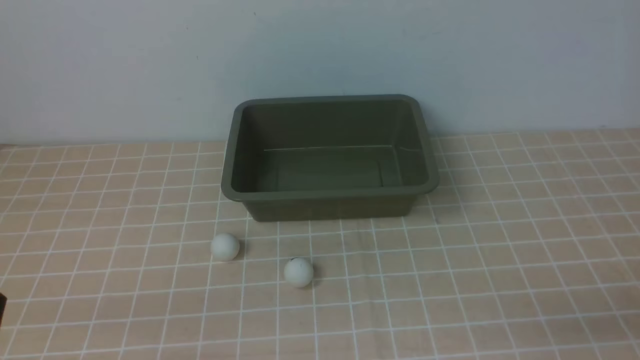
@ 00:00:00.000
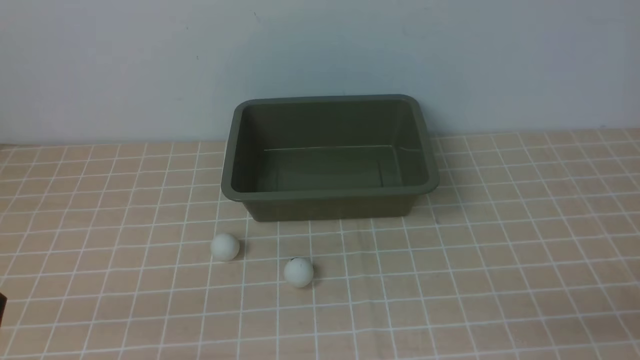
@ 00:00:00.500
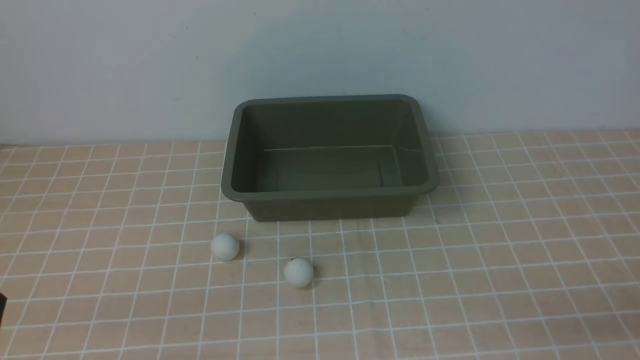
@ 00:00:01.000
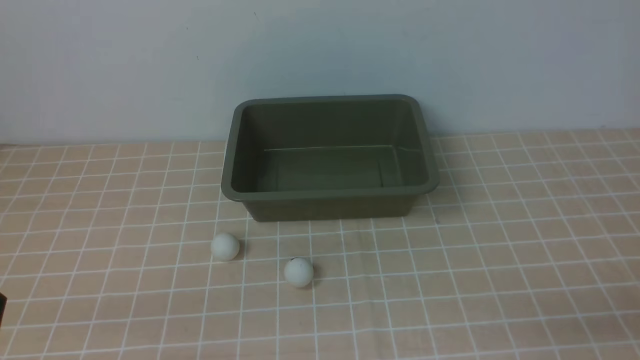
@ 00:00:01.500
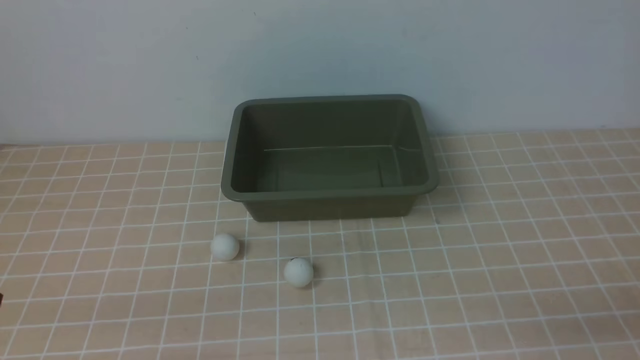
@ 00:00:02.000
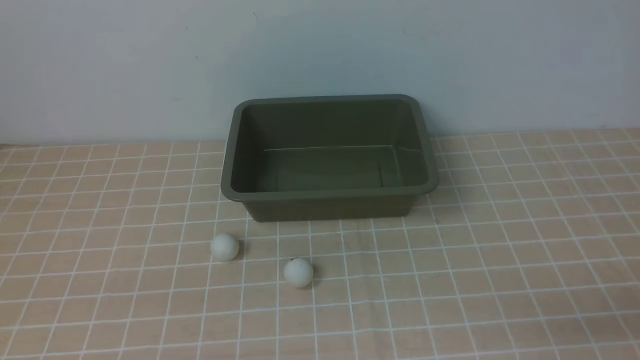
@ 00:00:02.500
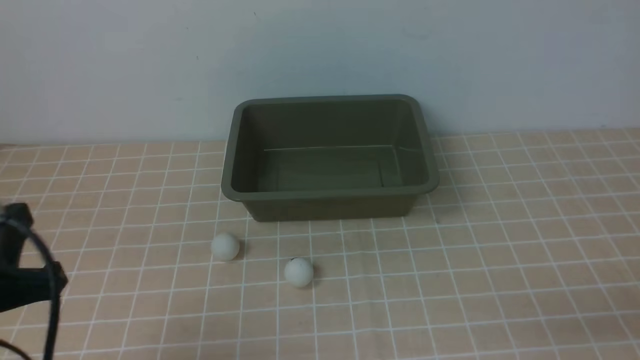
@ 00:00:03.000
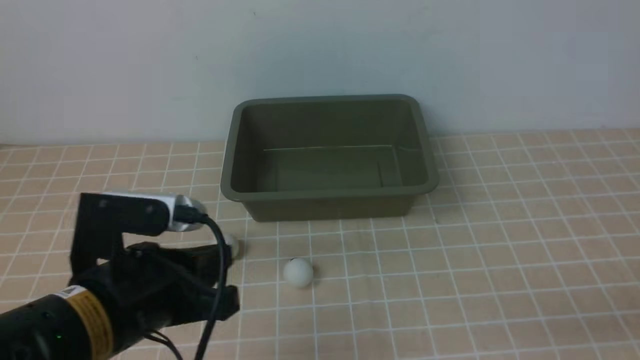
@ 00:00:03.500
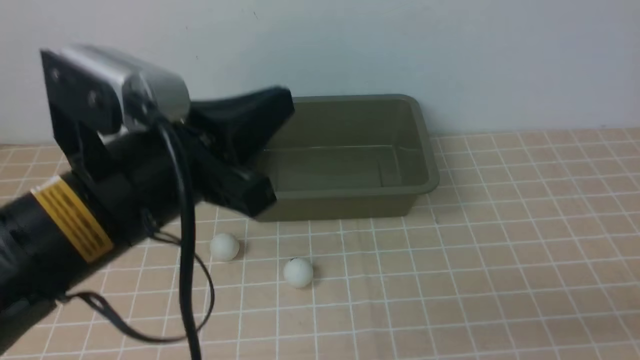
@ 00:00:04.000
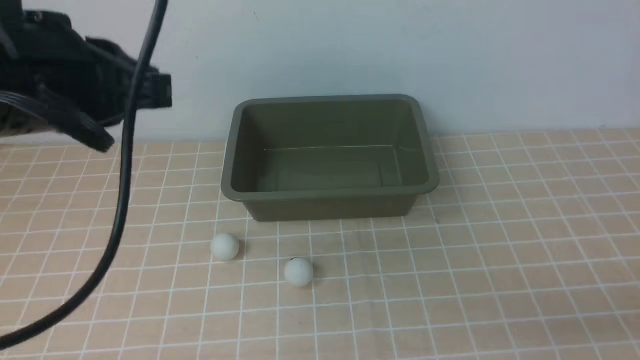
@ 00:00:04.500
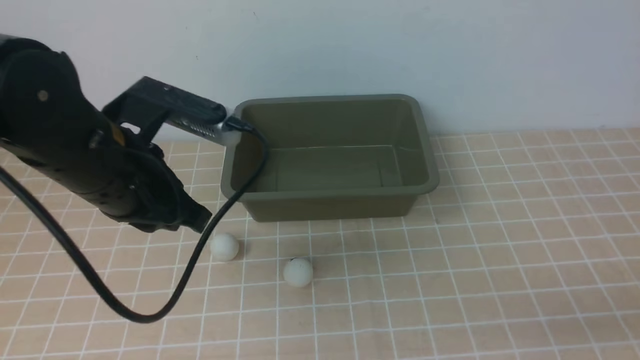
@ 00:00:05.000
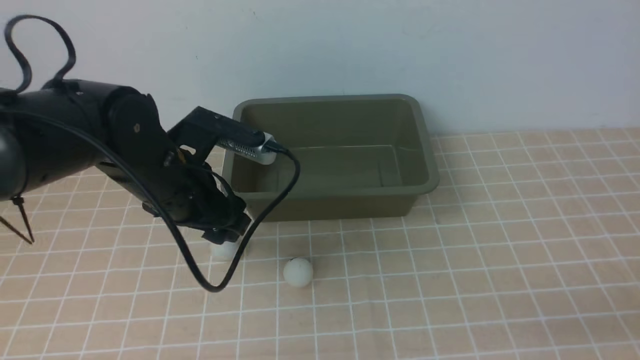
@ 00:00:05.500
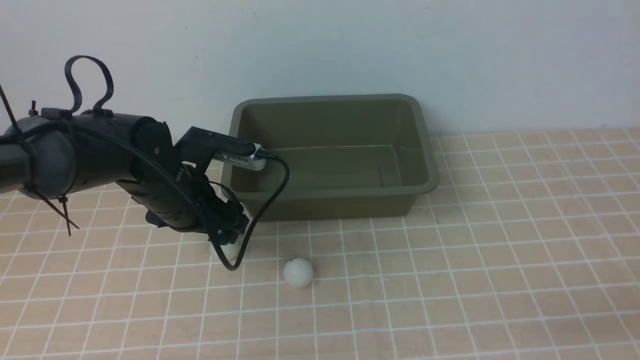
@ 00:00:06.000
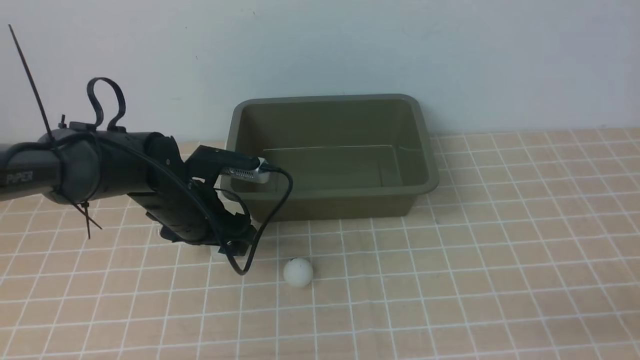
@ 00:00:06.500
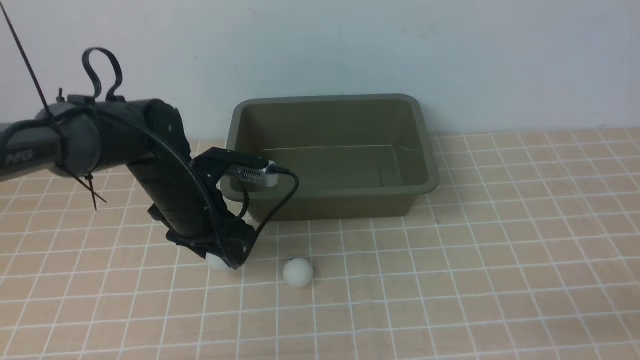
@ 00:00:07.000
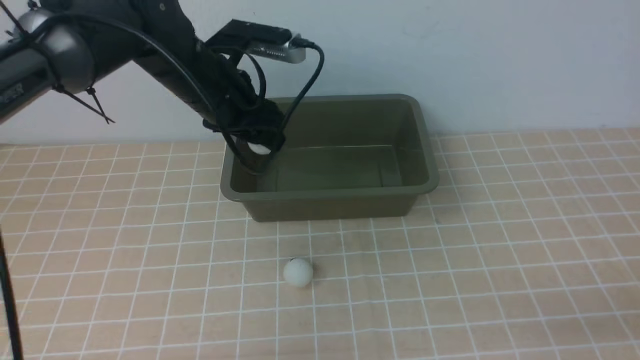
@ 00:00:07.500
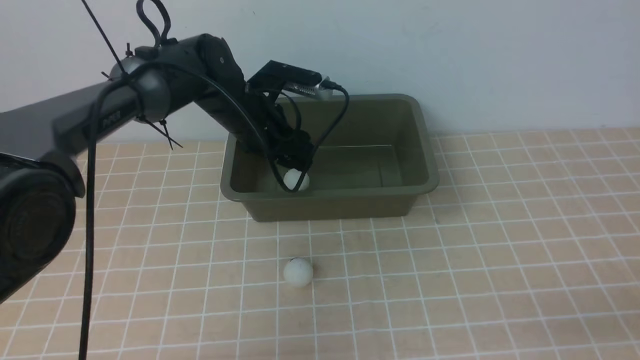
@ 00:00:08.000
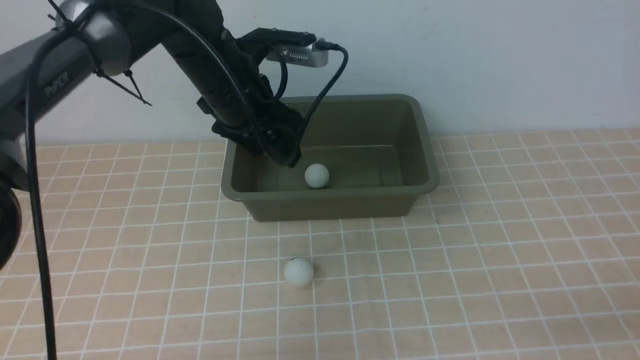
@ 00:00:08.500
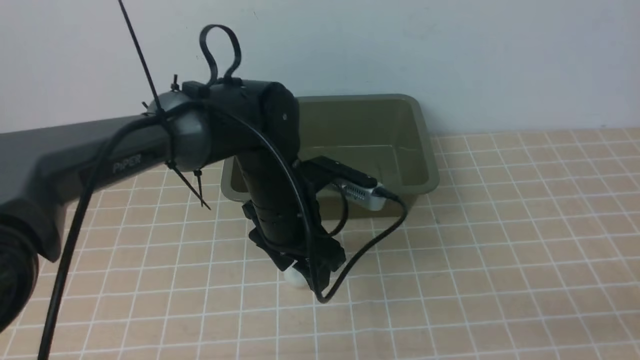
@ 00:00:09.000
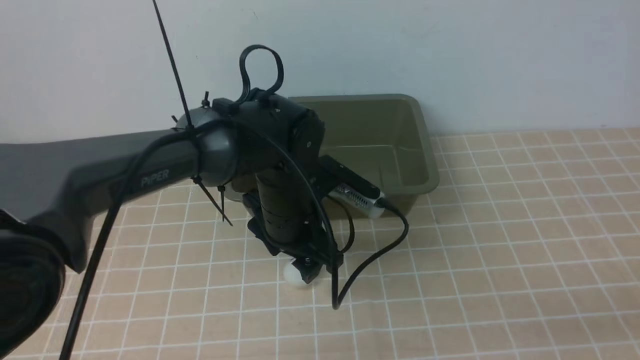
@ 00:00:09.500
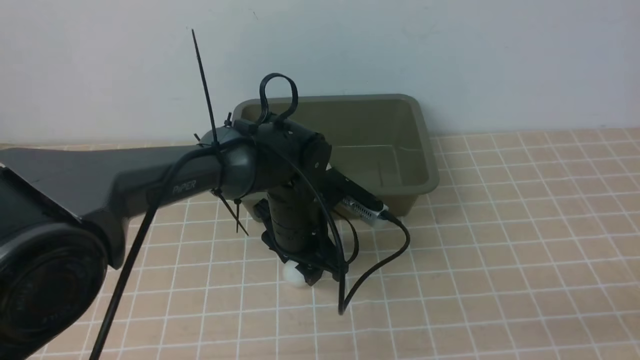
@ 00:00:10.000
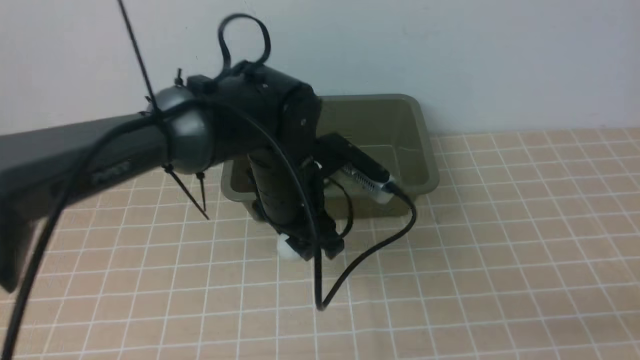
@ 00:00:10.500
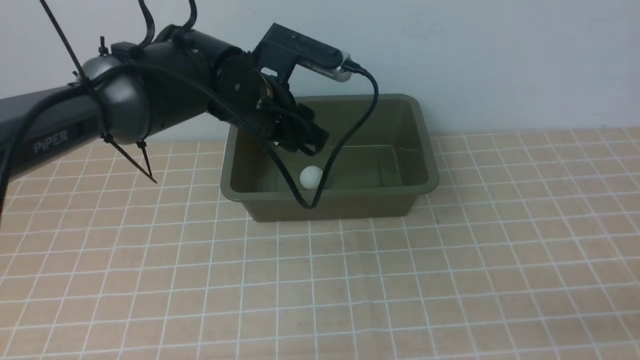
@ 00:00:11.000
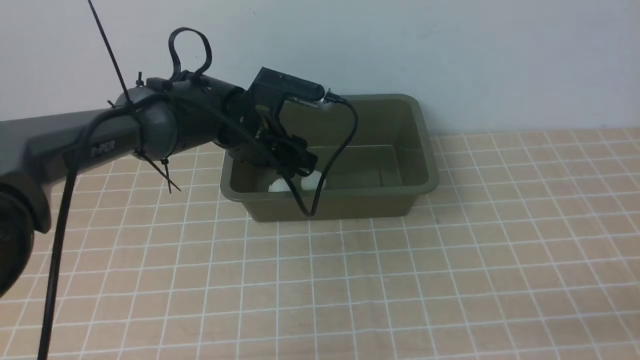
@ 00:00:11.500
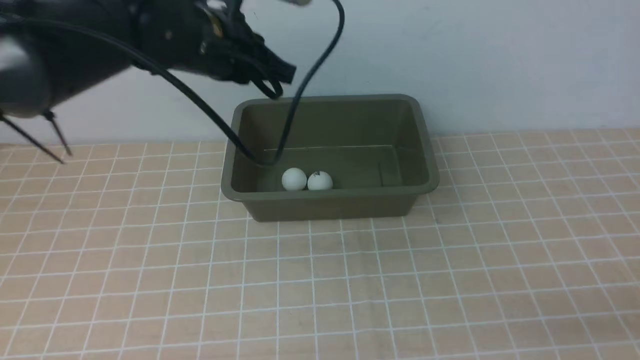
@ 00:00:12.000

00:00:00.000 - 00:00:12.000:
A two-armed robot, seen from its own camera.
Step, 00:00:00.000 - 00:00:07.000: use the left arm to clamp the table tennis ball closest to it.
Step, 00:00:07.500 - 00:00:08.000: use the left arm to put the table tennis ball into the box.
Step, 00:00:08.500 - 00:00:10.000: use the left arm to clamp the table tennis ball closest to it.
Step, 00:00:10.500 - 00:00:11.500: use the left arm to put the table tennis ball into the box.
00:00:02.000 - 00:00:04.000: The left gripper moves to the right, forward and upward, approximately 20 cm.
00:00:04.000 - 00:00:06.000: The left gripper shifts about 20 cm forward and downward, and opens up.
00:00:06.000 - 00:00:08.000: The left gripper shifts about 10 cm forward and to the right.
00:00:08.000 - 00:00:10.000: The left gripper heads backward, to the right and downward, covering approximately 15 cm.
00:00:10.000 - 00:00:12.000: The left gripper swings up and down, about 15 cm each way, with 2 reversals, and closes.

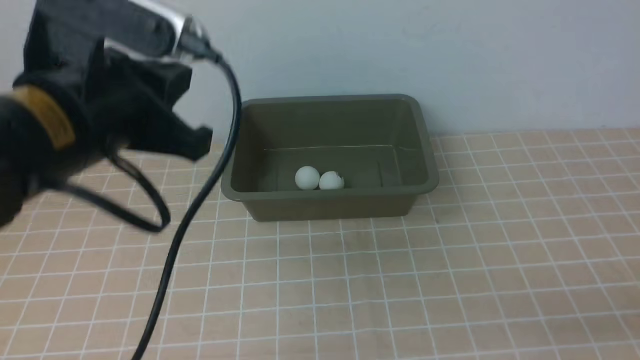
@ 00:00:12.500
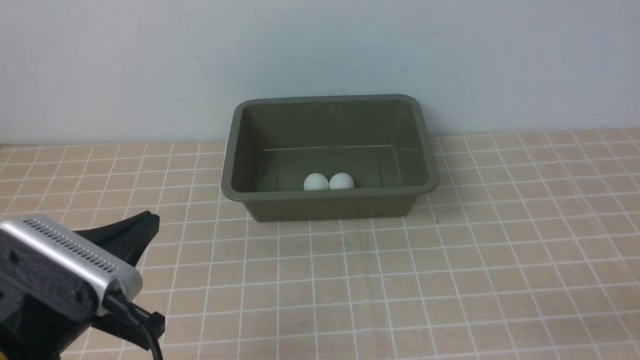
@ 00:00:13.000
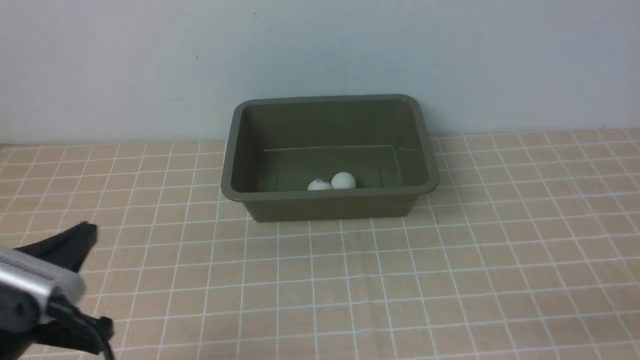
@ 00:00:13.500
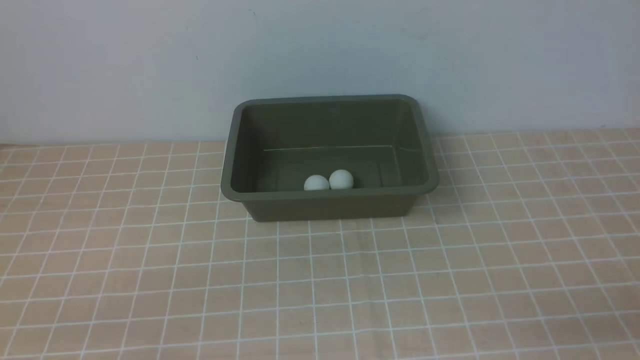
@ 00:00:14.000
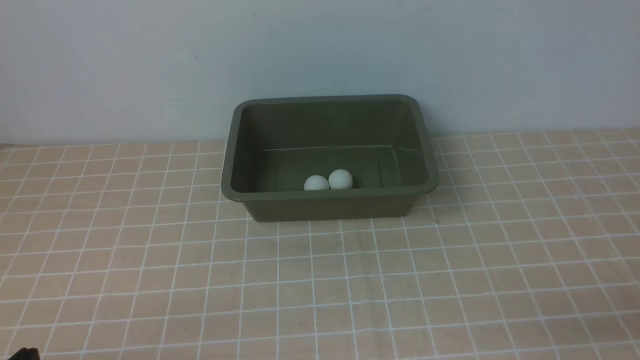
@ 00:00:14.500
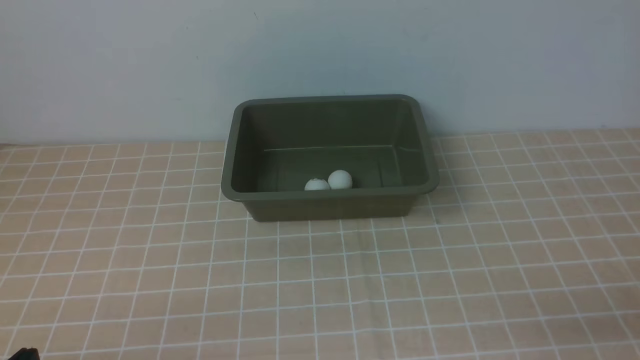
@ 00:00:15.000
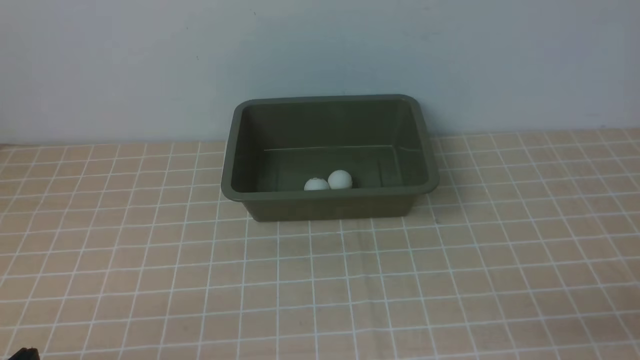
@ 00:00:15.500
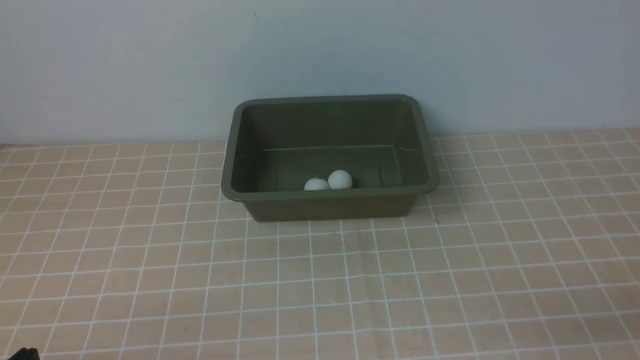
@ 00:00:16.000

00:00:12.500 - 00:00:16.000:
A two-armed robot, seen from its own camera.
00:00:12.500 - 00:00:14.500: The left gripper moves backward, downward and to the left, roughly 30 cm.
00:00:14.500 - 00:00:16.000: The two grippers keep their place.

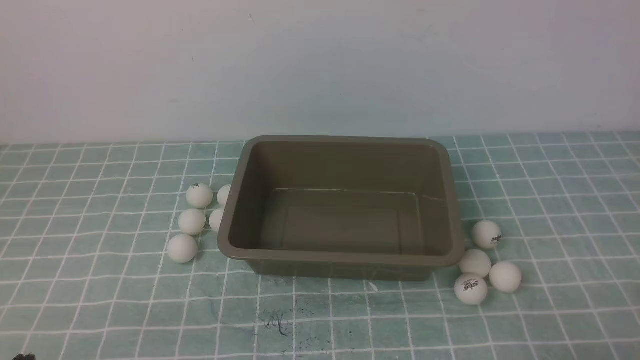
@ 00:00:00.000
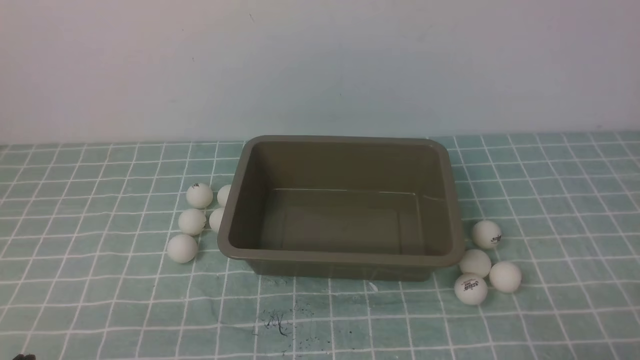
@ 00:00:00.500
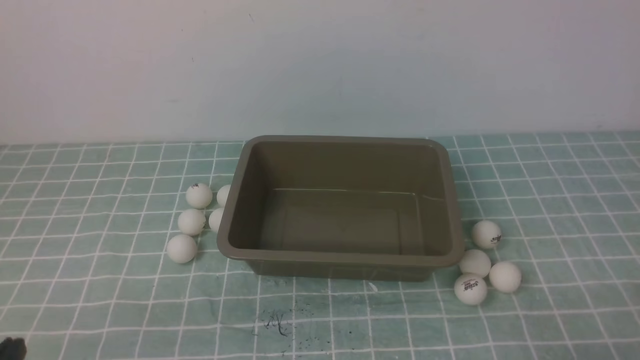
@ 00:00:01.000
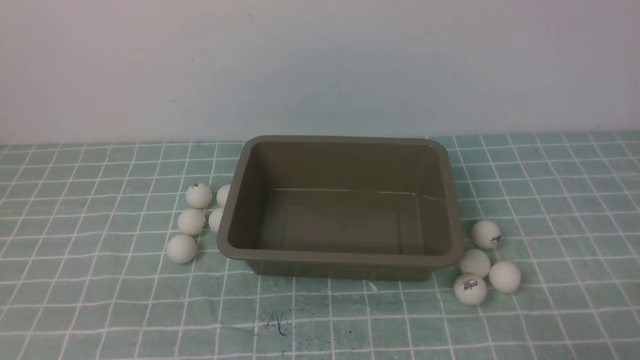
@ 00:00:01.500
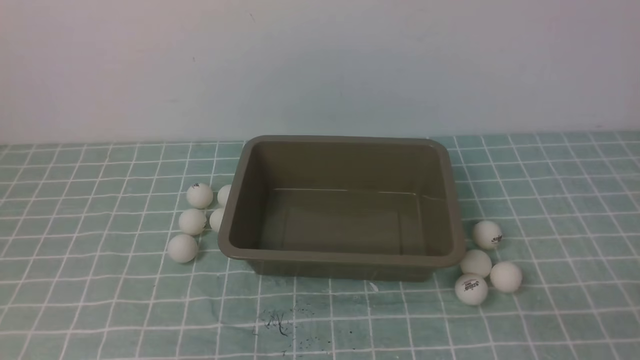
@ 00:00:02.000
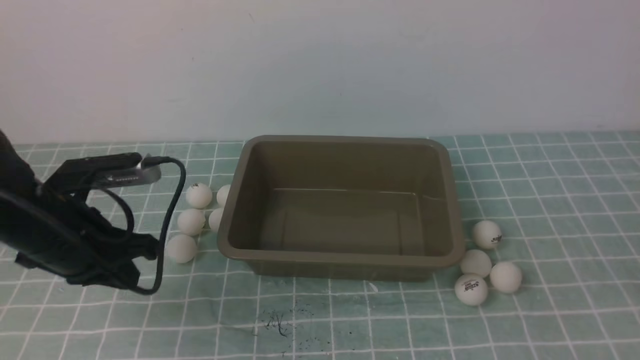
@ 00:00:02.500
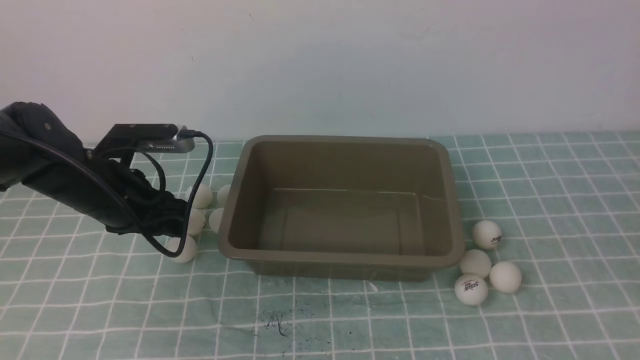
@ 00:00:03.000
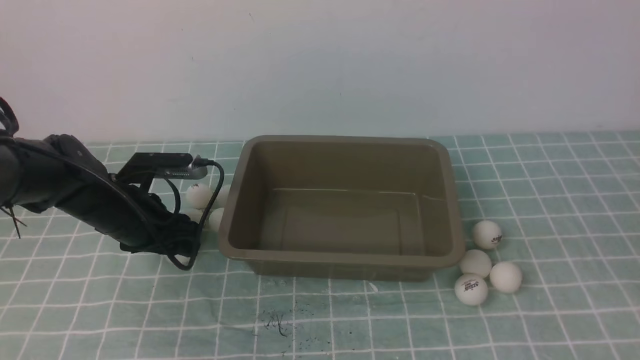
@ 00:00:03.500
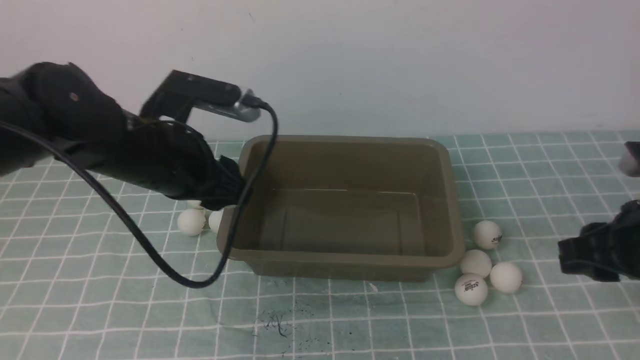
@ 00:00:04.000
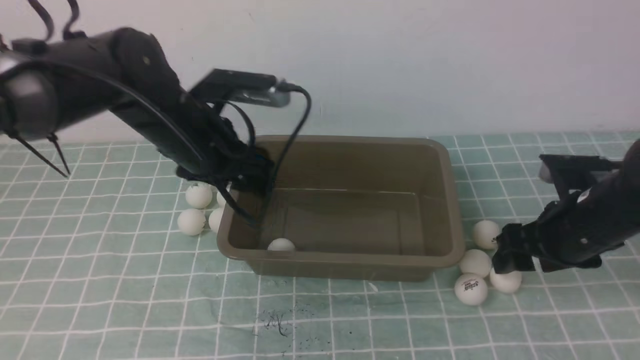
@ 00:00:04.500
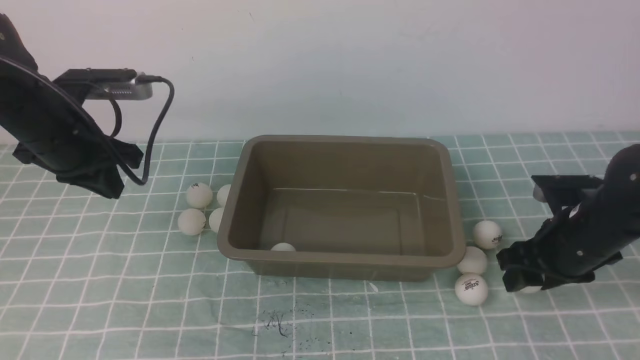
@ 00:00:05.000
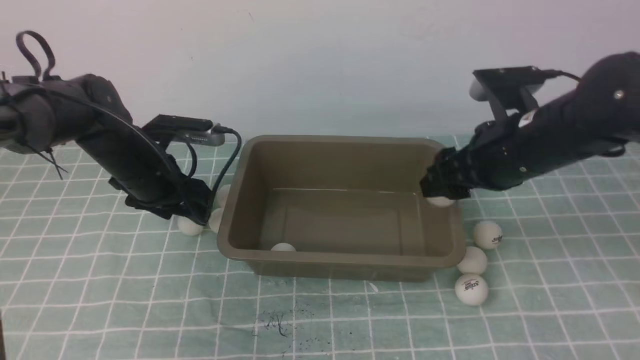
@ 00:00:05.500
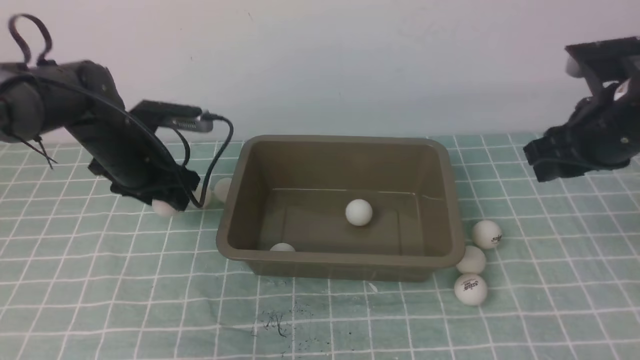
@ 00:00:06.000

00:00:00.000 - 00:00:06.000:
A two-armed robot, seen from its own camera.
Step, 00:00:00.000 - 00:00:03.000: use the left arm to clamp the table tennis ball closest to it.
Step, 00:00:05.000 - 00:00:05.500: use the right arm to put the table tennis ball into the box.
00:00:02.000 - 00:00:04.000: The right gripper travels forward by roughly 15 cm. Meanwhile the left gripper is displaced forward by some 25 cm, and opens its fingers.
00:00:04.000 - 00:00:06.000: The right gripper shifts approximately 10 cm forward, and goes downward and returns, approximately 10 cm each way; the left gripper heads forward and downward, covering roughly 10 cm, and closes and opens again.
